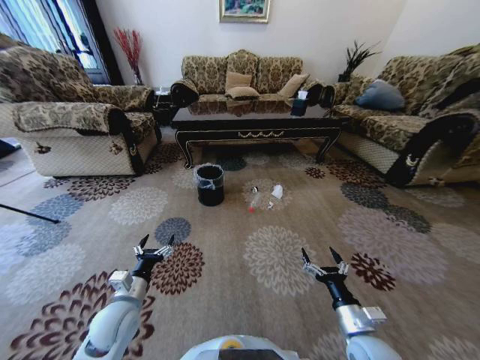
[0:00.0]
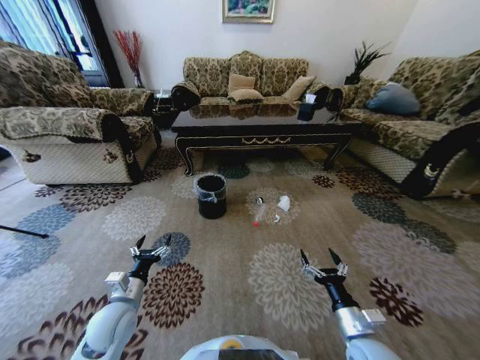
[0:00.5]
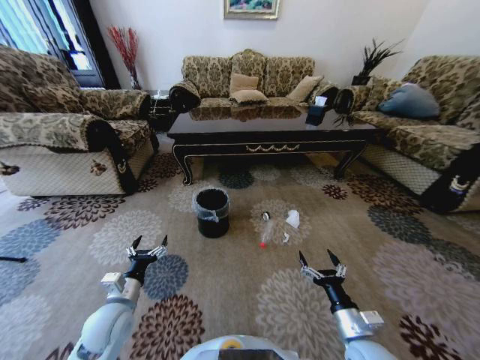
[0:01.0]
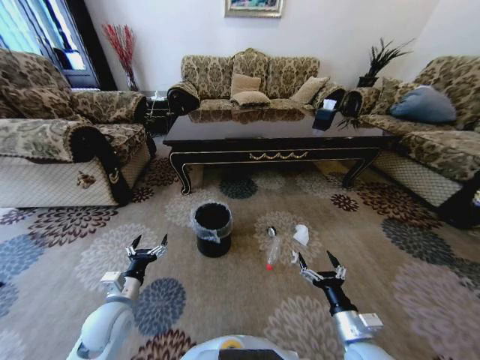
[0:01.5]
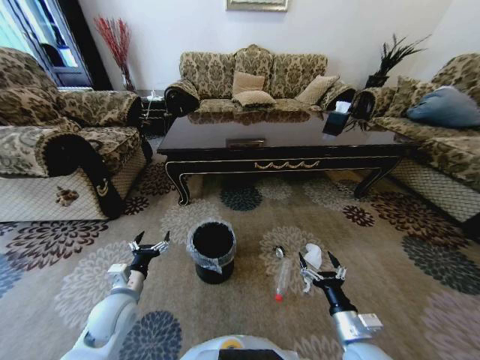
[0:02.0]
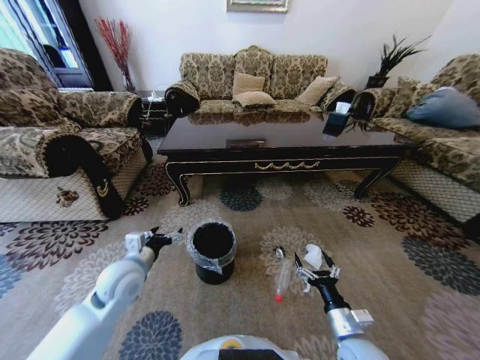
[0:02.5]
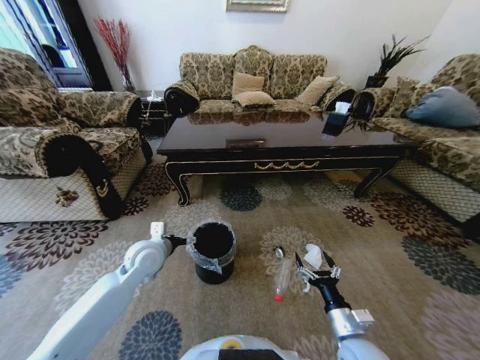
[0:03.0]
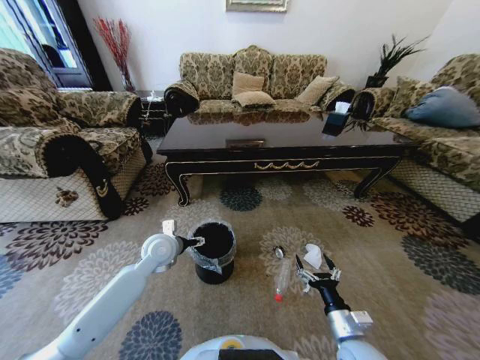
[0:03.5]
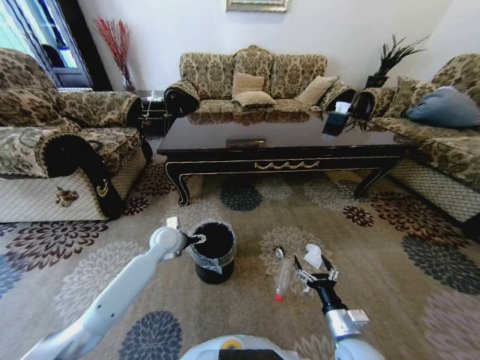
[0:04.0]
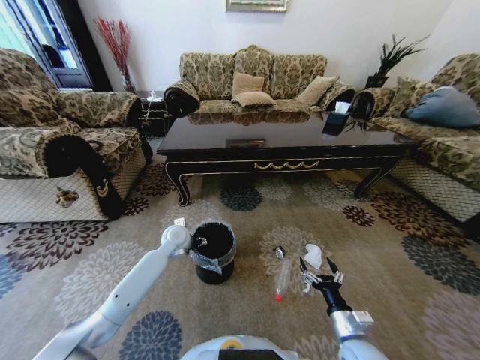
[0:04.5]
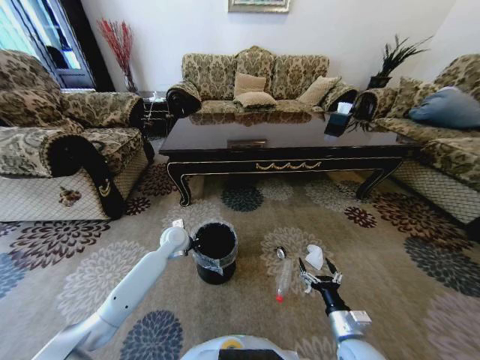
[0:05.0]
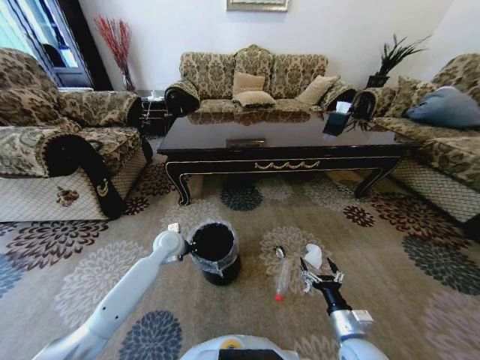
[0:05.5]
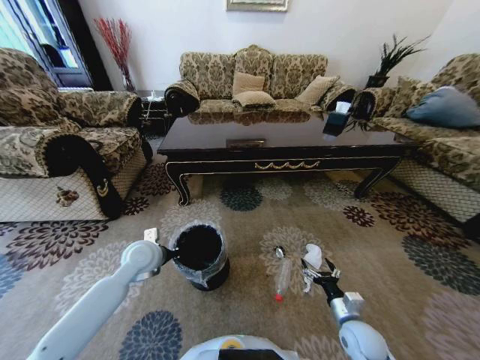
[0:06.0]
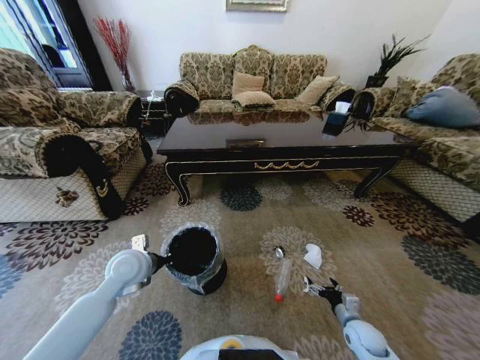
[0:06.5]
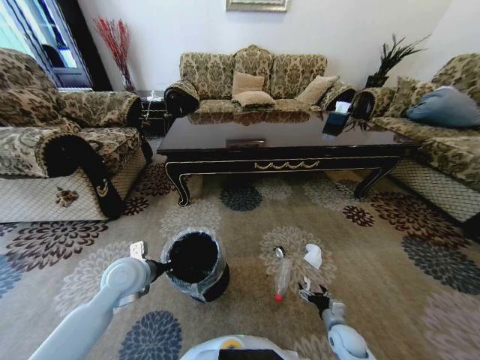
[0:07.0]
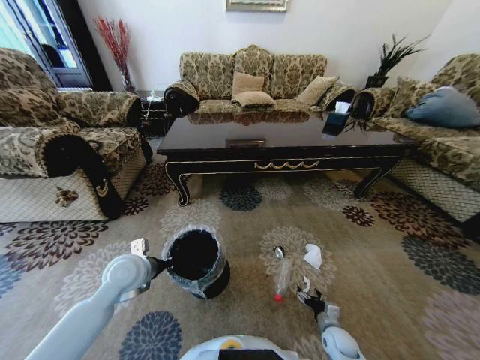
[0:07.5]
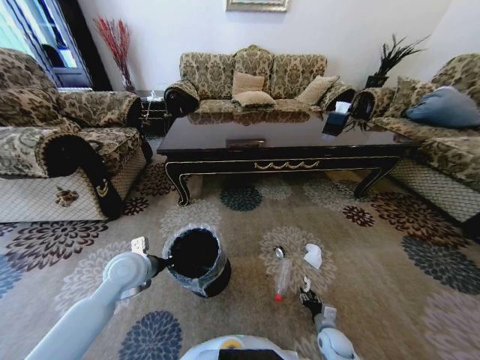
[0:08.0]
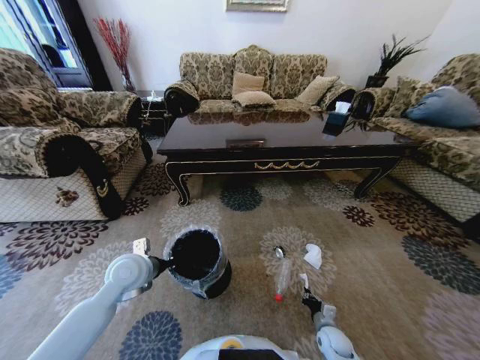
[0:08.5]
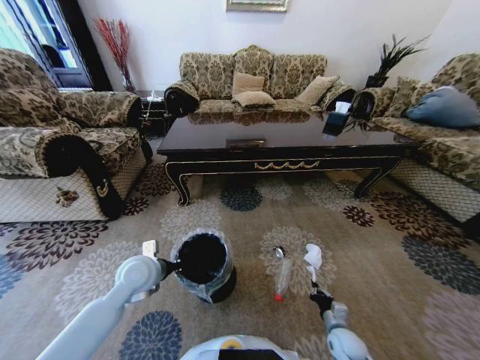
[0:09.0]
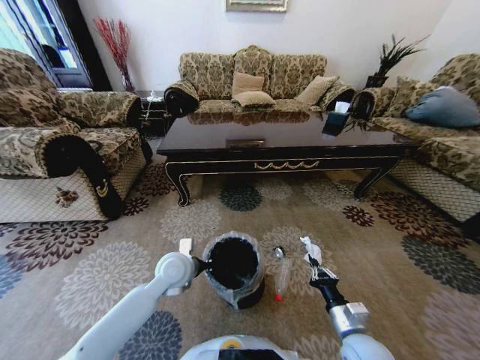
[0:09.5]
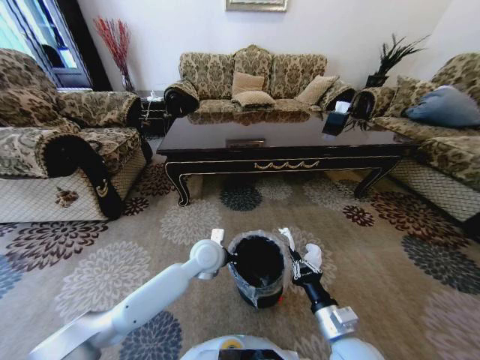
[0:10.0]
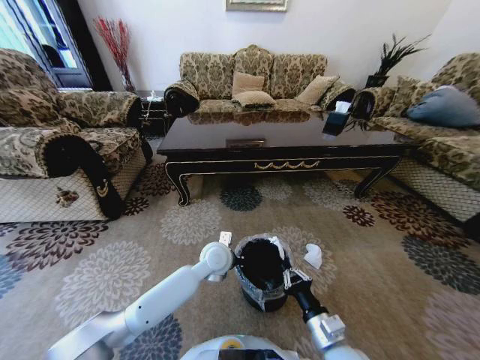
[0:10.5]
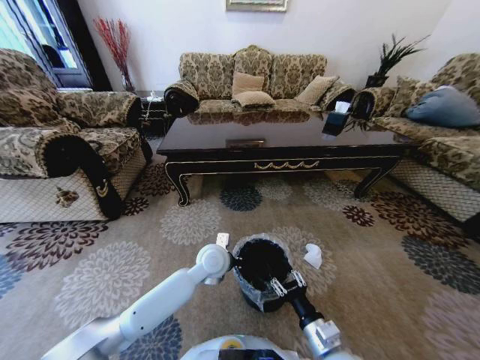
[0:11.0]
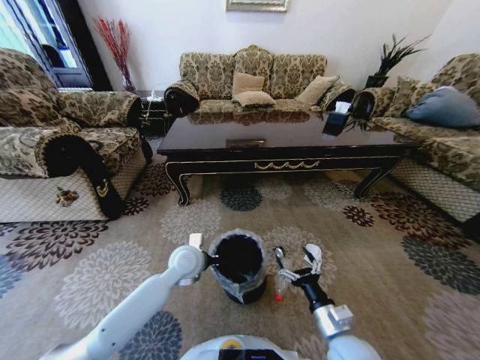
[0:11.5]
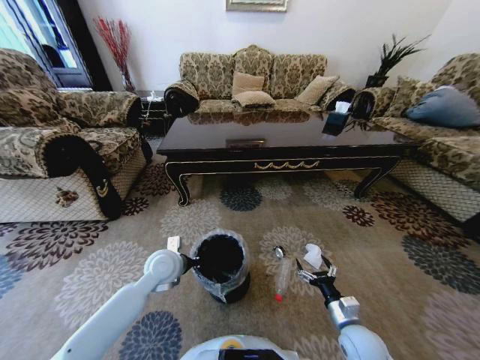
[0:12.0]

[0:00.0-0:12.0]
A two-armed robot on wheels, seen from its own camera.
Task of the whole recording: Move to the front of the table and pick up the trash from the floor, then place it into the trash bin.
0:02.0 to 0:04.0: The left gripper goes approximately 20 cm forward and to the right.
0:04.0 to 0:06.0: The right gripper heads to the right, covering approximately 5 cm. The left gripper travels backward by about 5 cm, and closes.
0:06.0 to 0:08.0: The right gripper heads downward, covering about 15 cm, and closes.
0:08.0 to 0:10.0: The right gripper shifts roughly 25 cm upward, and closes up. The left gripper shifts about 20 cm to the right.
0:10.0 to 0:12.0: The right gripper is displaced downward and to the right by about 10 cm, and opens its fingers. The left gripper shifts approximately 10 cm to the left.

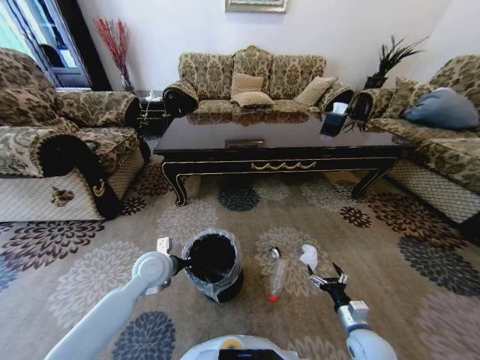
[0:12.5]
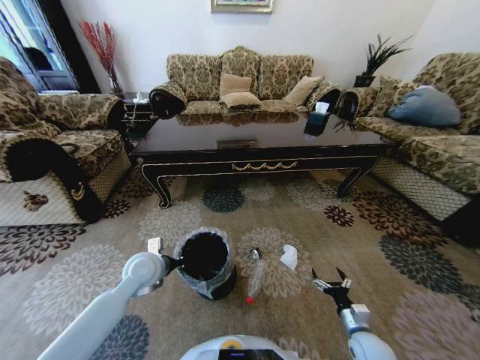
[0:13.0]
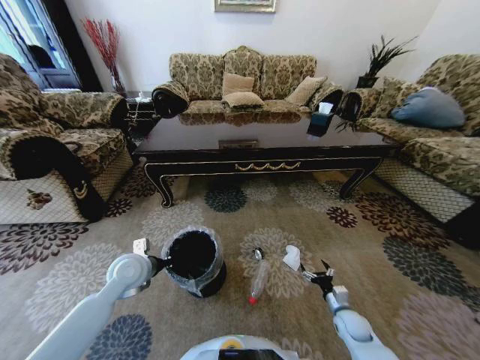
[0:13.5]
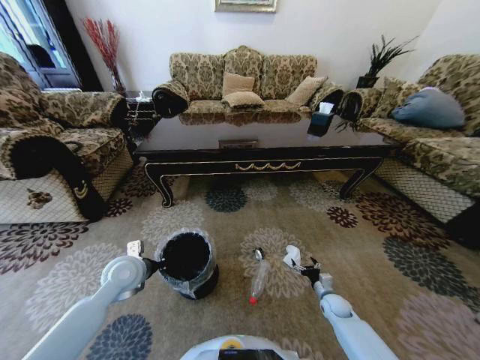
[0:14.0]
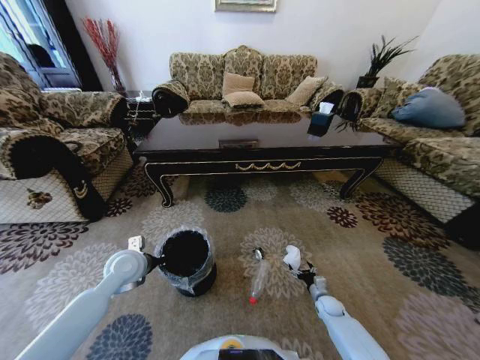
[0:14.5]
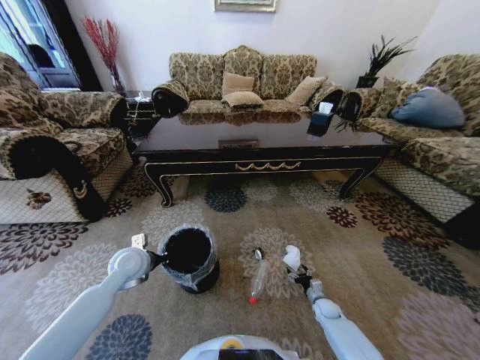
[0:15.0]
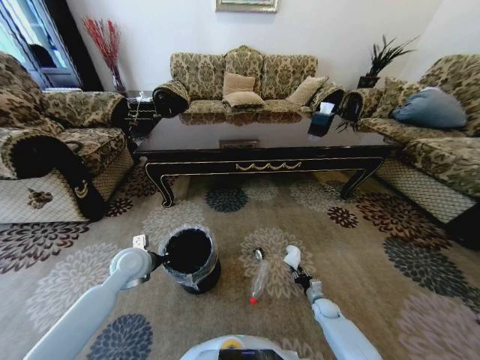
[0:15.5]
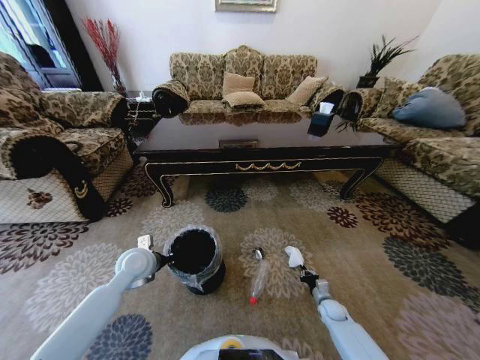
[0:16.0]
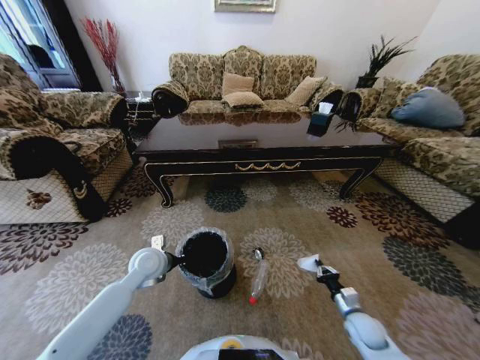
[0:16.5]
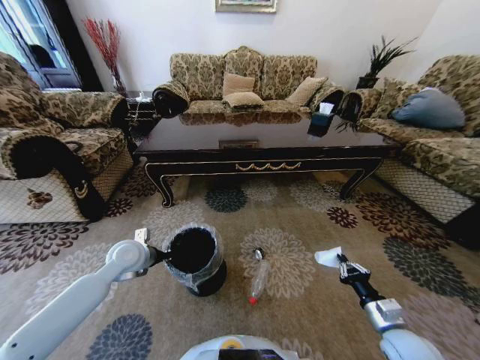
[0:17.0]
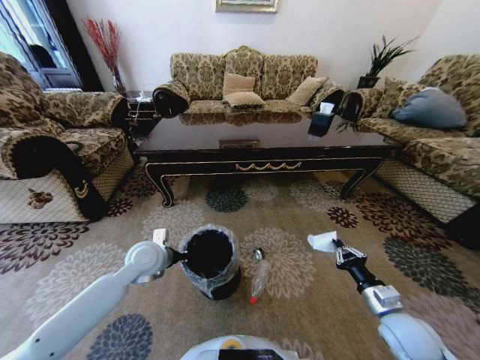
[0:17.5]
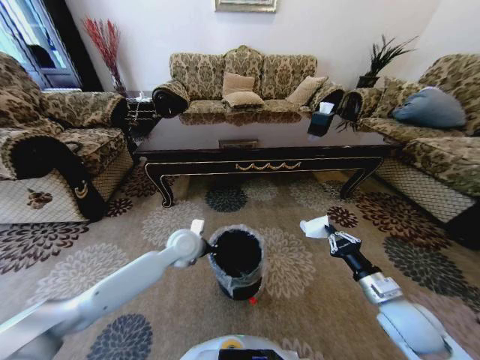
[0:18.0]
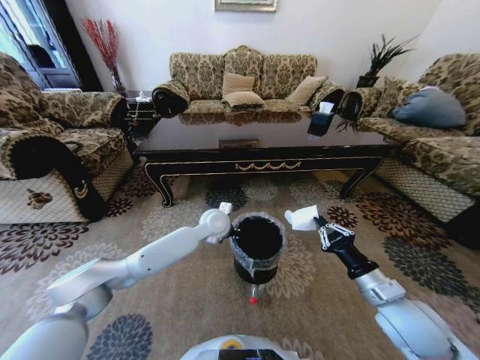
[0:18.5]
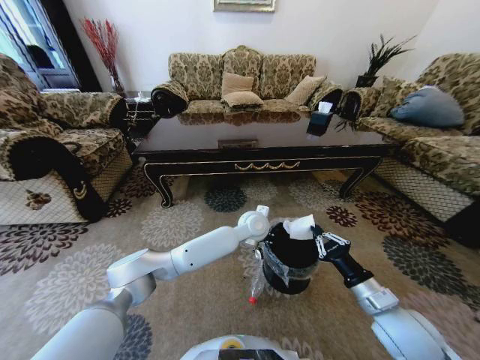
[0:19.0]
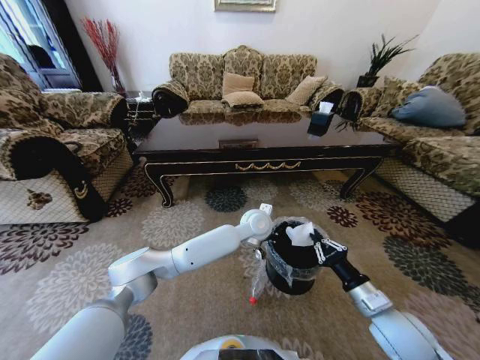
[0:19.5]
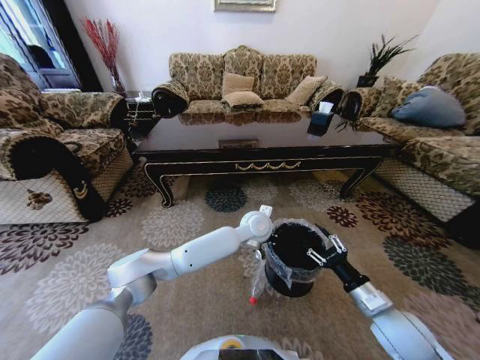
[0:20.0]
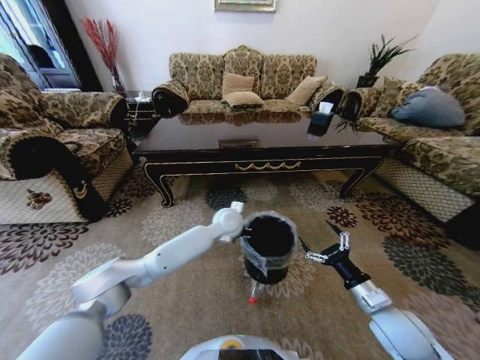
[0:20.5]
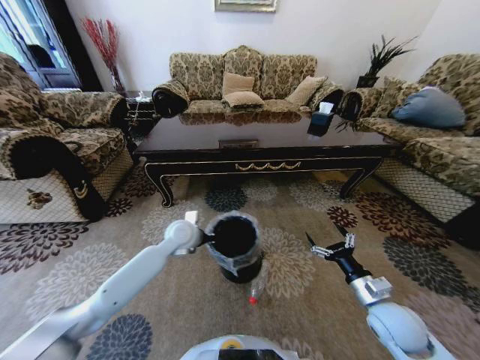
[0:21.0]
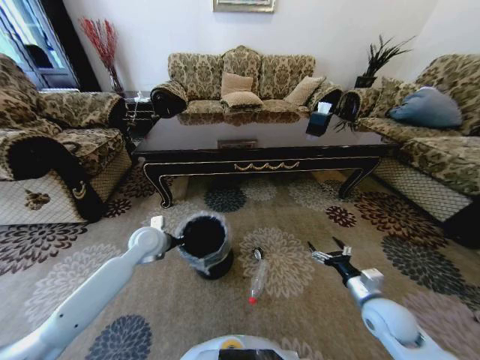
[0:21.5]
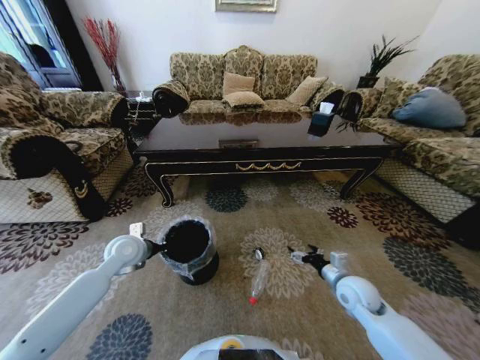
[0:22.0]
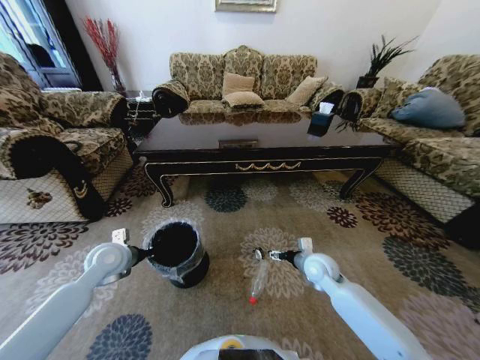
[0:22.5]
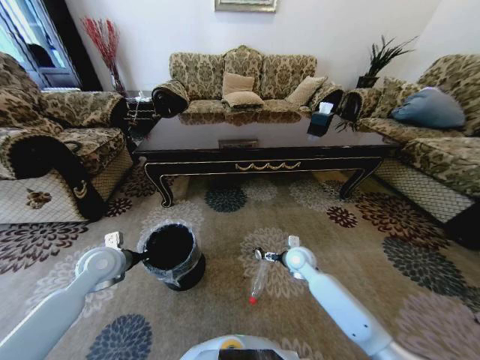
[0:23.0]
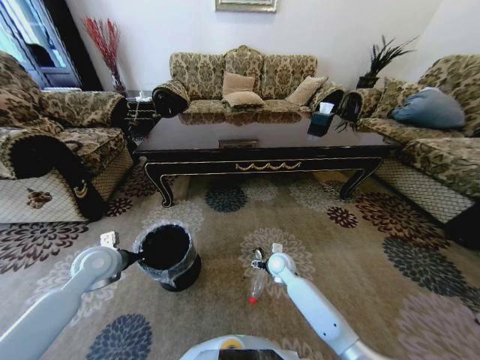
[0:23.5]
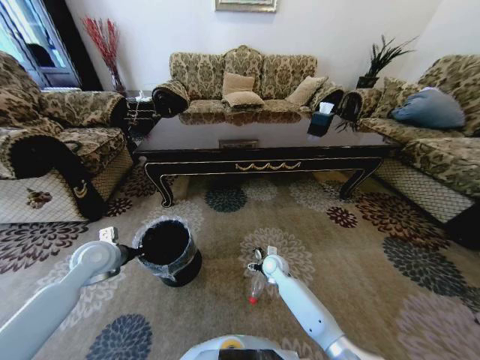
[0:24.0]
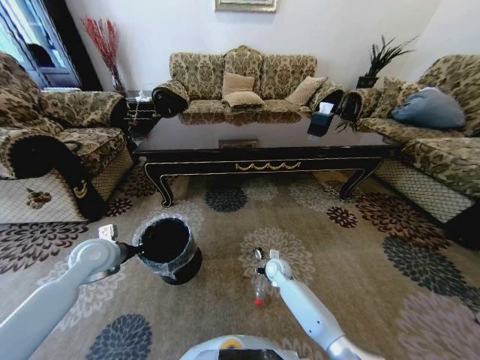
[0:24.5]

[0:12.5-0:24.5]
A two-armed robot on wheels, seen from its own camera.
Task of the whole recording: Move to the front of the table and pick up the trash from the floor, then place it into the trash bin.
0:12.5 to 0:14.5: The left gripper goes about 5 cm to the left. Meanwhile the right gripper is displaced downward and forward by about 20 cm.
0:14.5 to 0:16.5: The left gripper changes place by about 5 cm, while the right gripper heads upward and backward, covering about 15 cm, and closes its fingers.
0:16.5 to 0:18.5: The right gripper is displaced upward by some 25 cm, while the left gripper shifts some 20 cm to the right and forward.
0:18.5 to 0:20.5: The right gripper heads downward, covering some 5 cm, and opens. The left gripper goes to the right and returns, some 10 cm each way.
0:20.5 to 0:22.5: The right gripper moves forward and to the left, some 20 cm; the left gripper moves to the left, some 35 cm.
0:22.5 to 0:24.5: The right gripper heads downward, to the left and forward, covering roughly 15 cm, and closes.

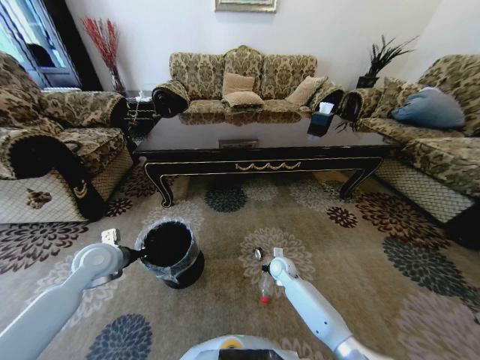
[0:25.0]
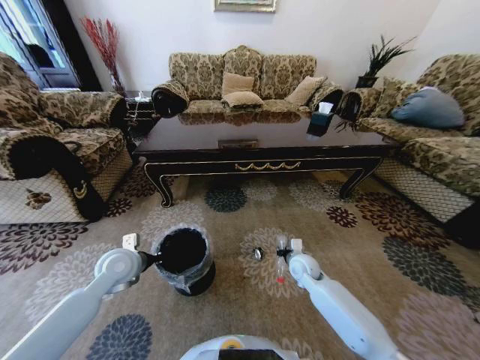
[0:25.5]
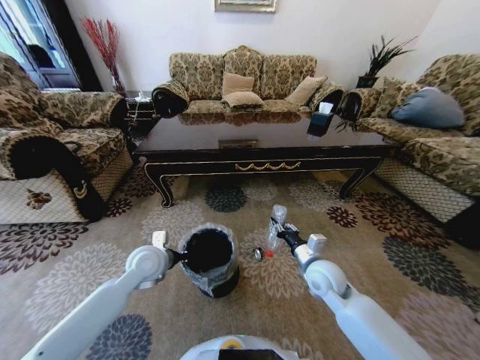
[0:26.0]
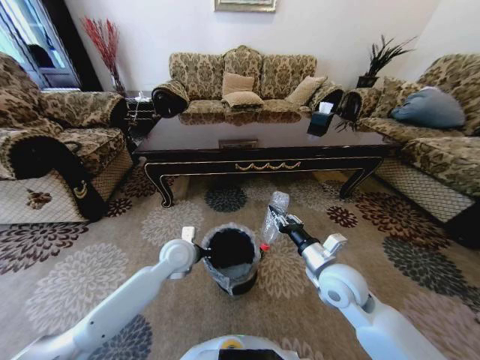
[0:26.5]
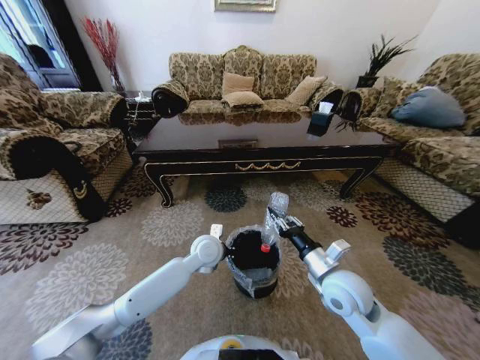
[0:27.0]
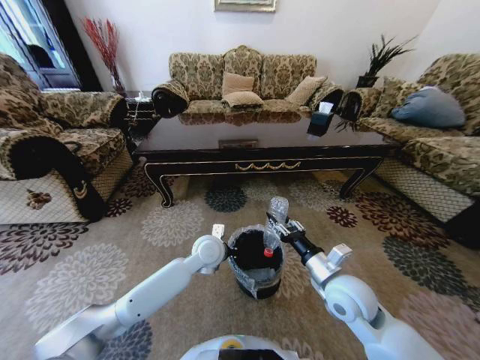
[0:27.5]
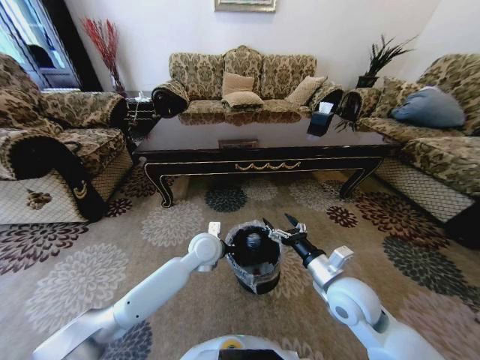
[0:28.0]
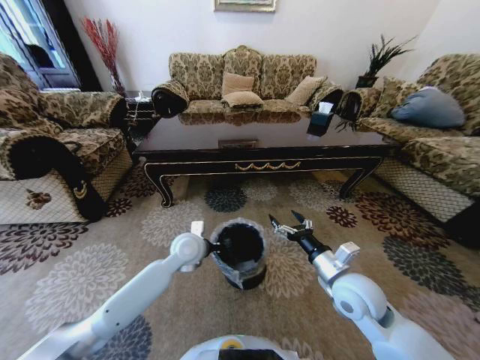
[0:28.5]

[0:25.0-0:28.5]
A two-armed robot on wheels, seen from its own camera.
Task of the whole recording: Move to the front of the table and pick up the trash from the floor, then place it into the trash bin.
0:25.0 to 0:27.0: The right gripper goes approximately 25 cm upward and backward; the left gripper is displaced to the right by about 30 cm.
0:27.0 to 0:28.5: The left gripper goes some 5 cm to the left. The right gripper opens.
